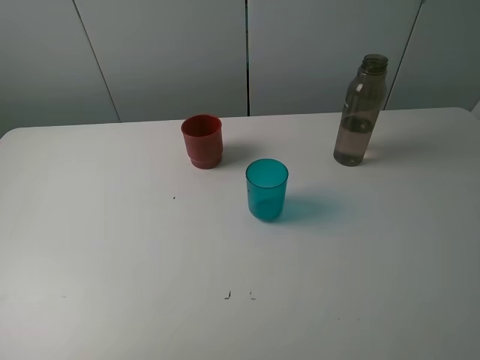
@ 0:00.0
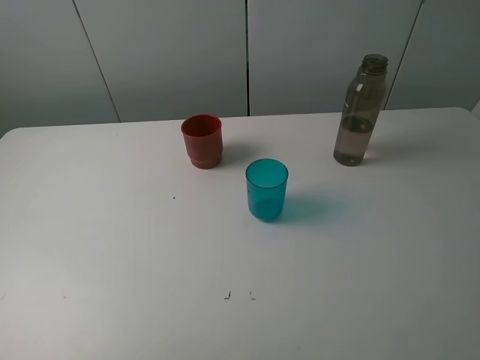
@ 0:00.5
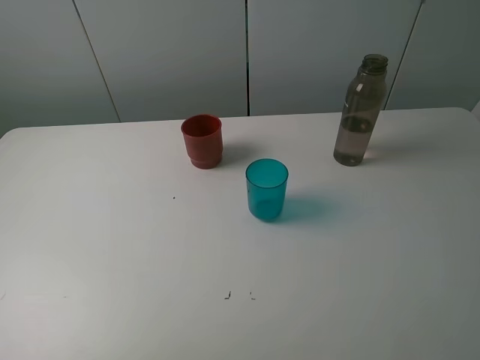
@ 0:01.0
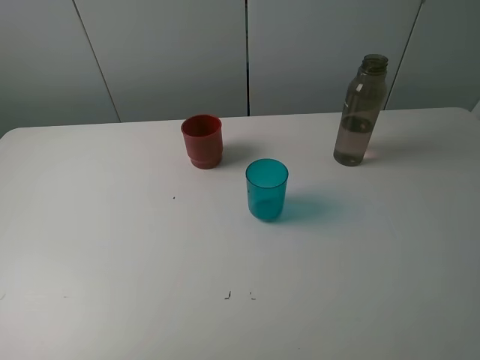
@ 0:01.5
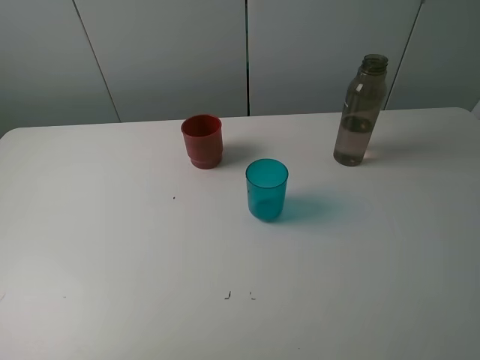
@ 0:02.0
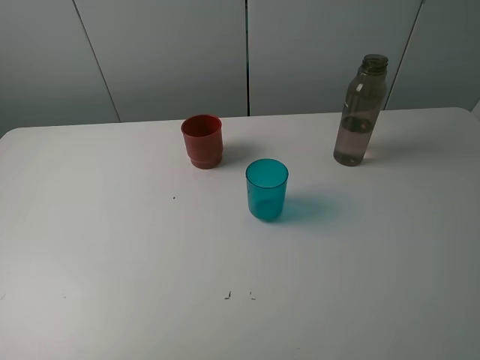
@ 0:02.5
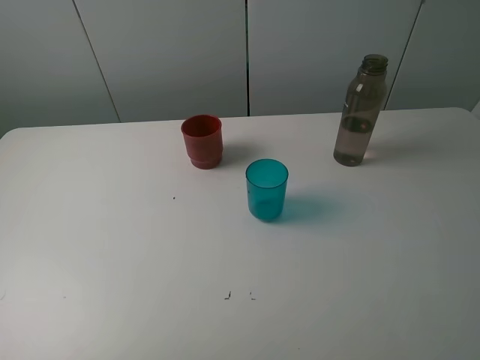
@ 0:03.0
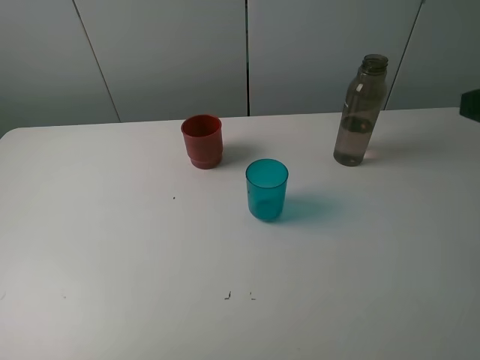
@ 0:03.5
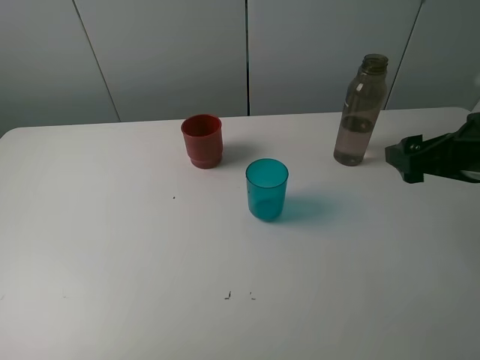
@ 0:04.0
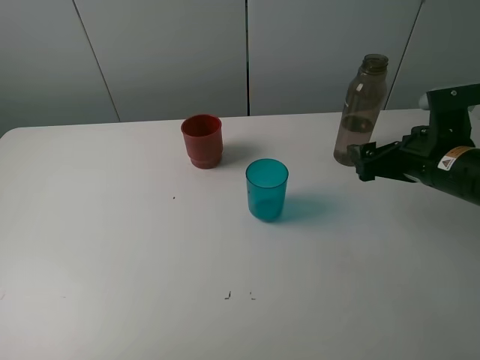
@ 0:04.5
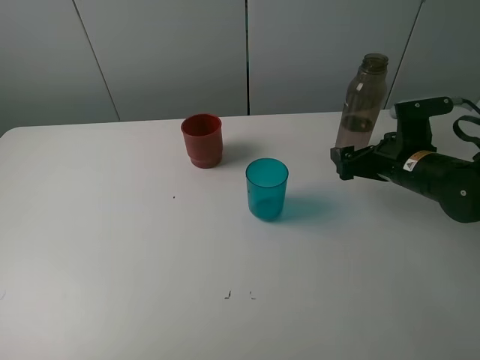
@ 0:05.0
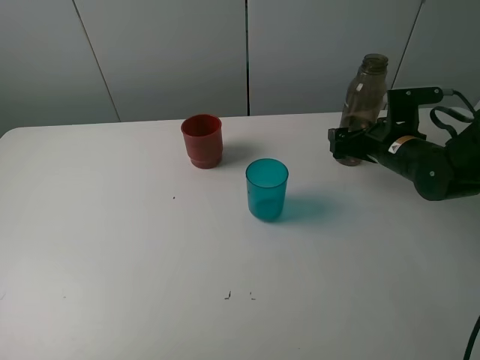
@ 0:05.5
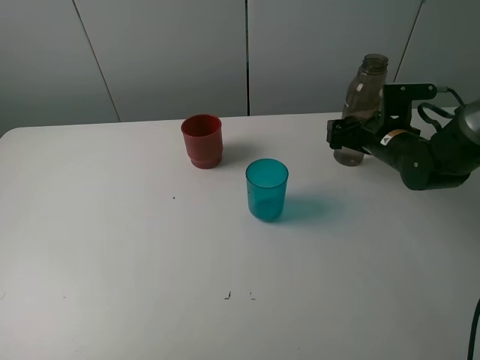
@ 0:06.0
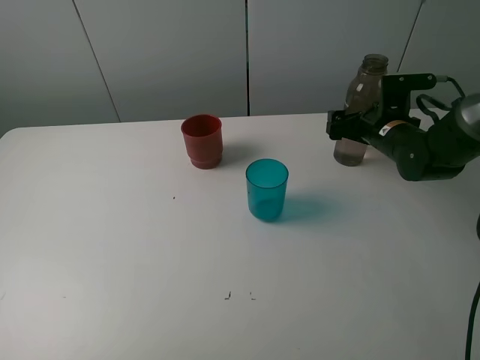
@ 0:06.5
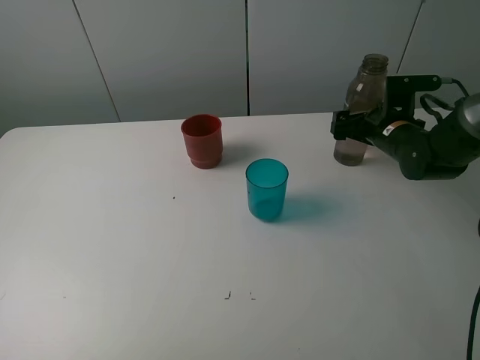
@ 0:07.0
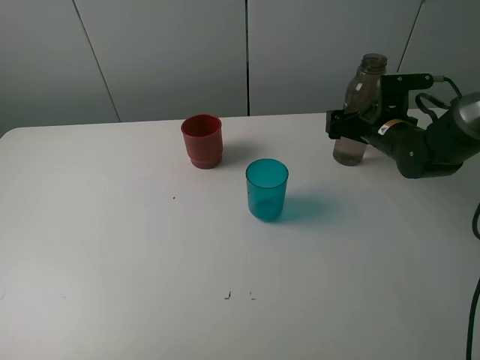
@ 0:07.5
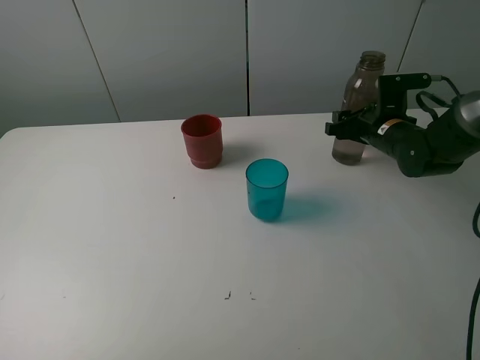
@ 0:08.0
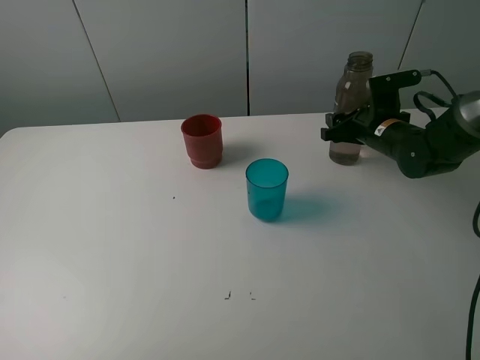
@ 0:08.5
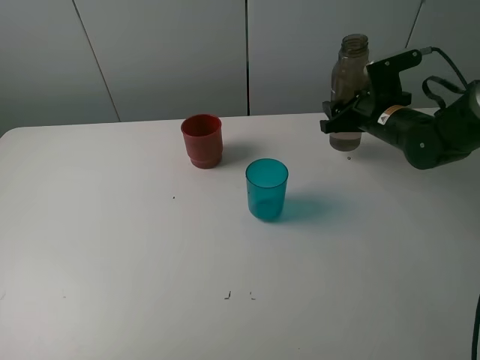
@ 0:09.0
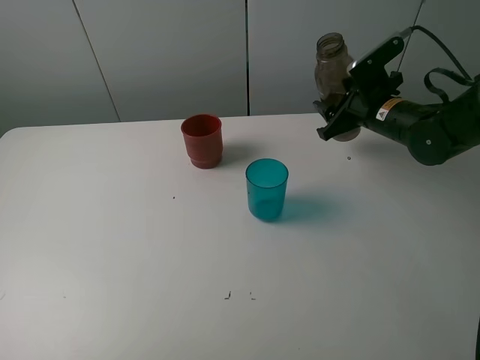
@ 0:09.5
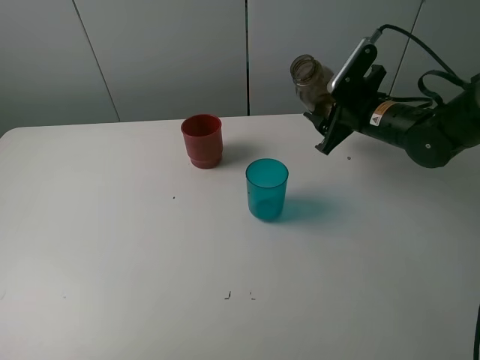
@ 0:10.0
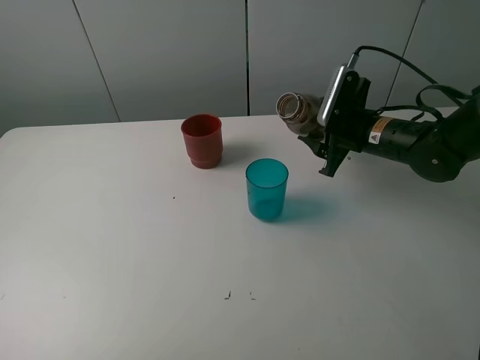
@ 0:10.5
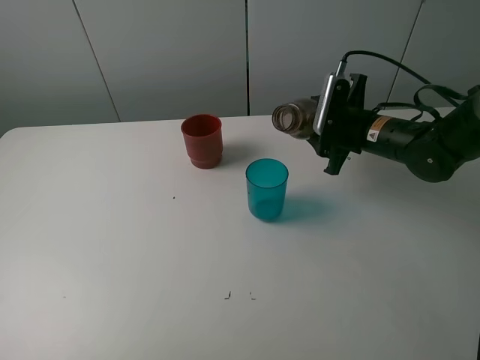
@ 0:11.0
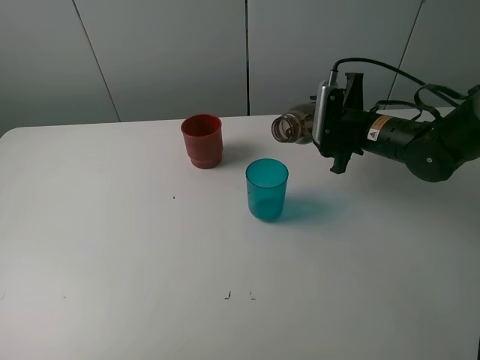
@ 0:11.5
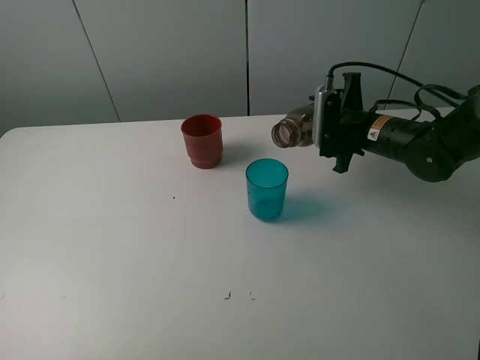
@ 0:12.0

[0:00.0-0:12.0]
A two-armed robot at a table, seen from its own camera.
Task of the whole recording: pick up the bottle and pour water into the cup, then pick up the cup containing water and pour it into another cup.
Step, 0:00.0 to 0:08.0: Grasp the brown bottle with the right gripper.
0:00.0 to 0:02.0: Both grippers stay about where they are.
0:02.0 to 0:04.0: The right gripper is displaced forward and downward by some 25 cm.
0:04.0 to 0:06.0: The right gripper moves forward and downward, about 20 cm.
0:06.0 to 0:08.0: The right gripper closes up.
0:08.0 to 0:10.0: The right gripper ends up roughly 5 cm from where it was.

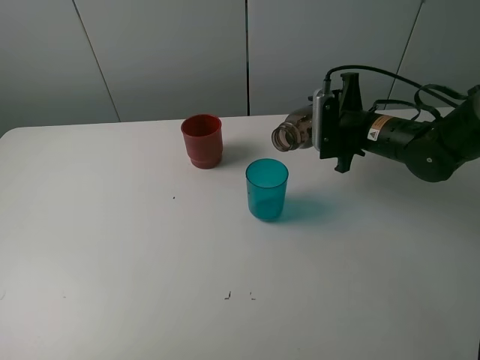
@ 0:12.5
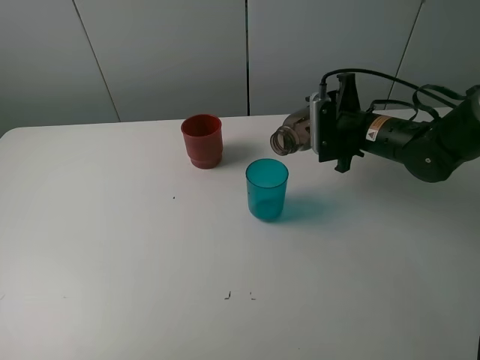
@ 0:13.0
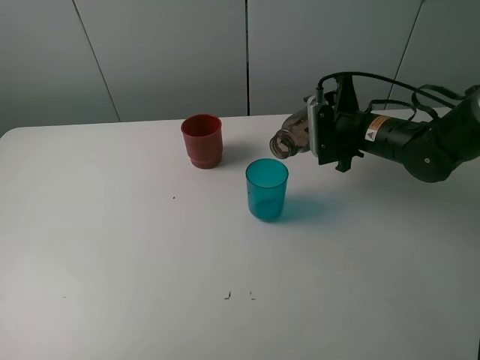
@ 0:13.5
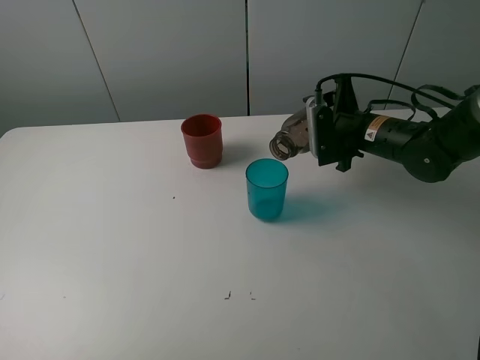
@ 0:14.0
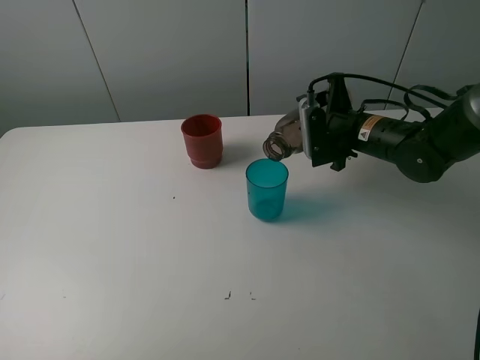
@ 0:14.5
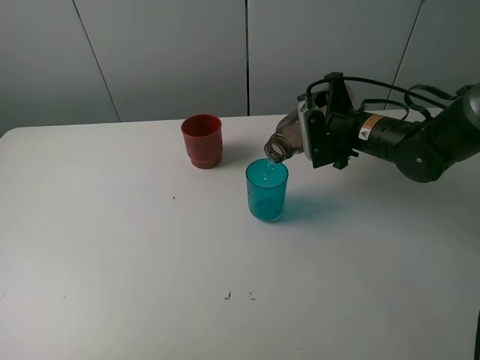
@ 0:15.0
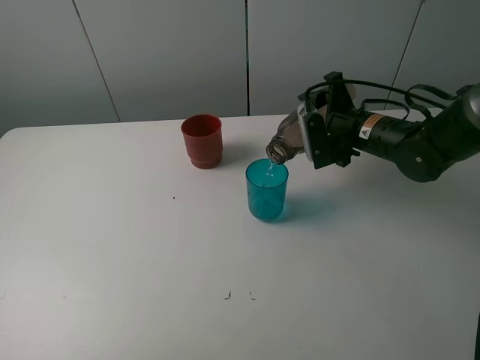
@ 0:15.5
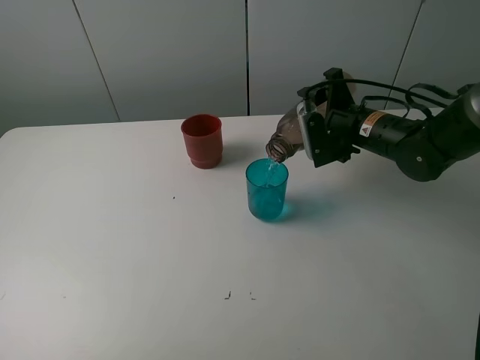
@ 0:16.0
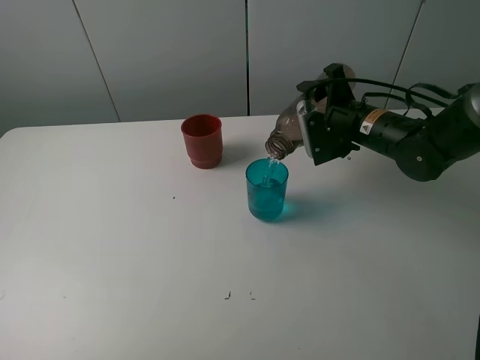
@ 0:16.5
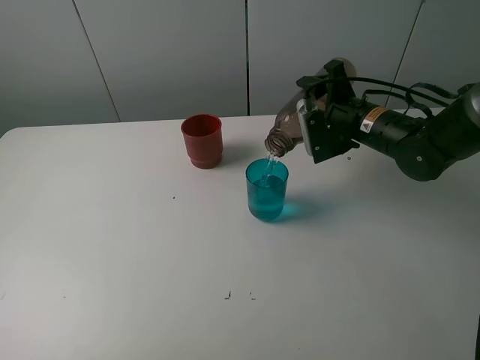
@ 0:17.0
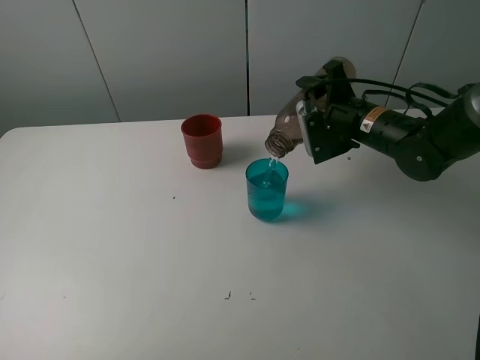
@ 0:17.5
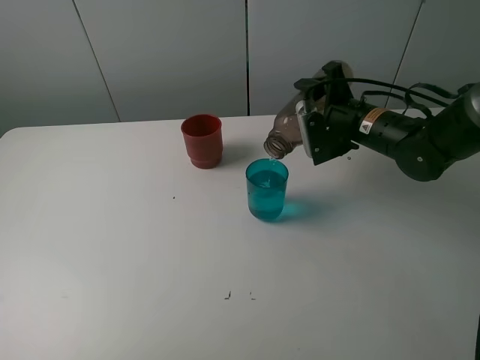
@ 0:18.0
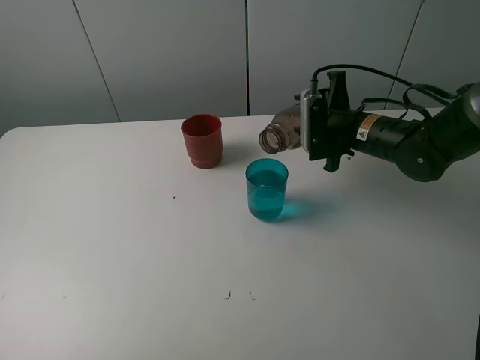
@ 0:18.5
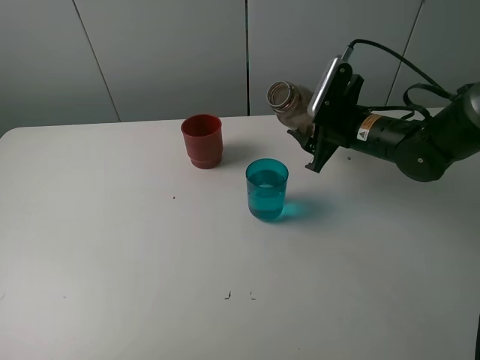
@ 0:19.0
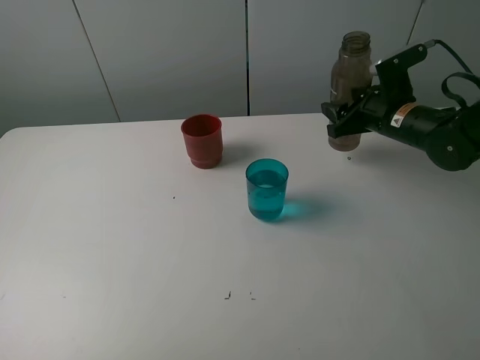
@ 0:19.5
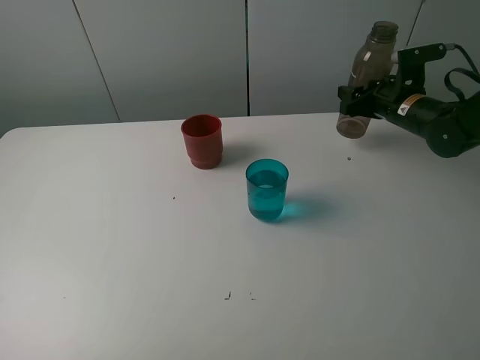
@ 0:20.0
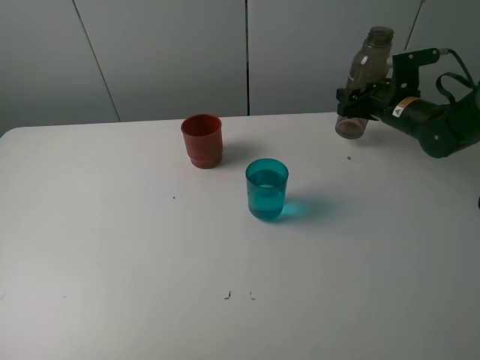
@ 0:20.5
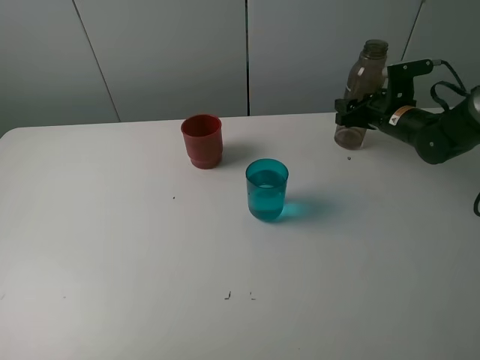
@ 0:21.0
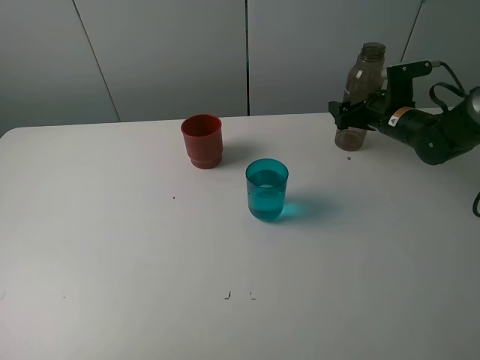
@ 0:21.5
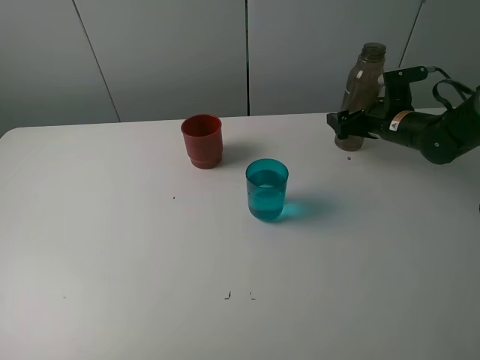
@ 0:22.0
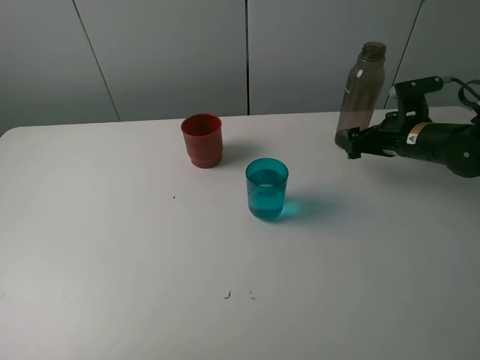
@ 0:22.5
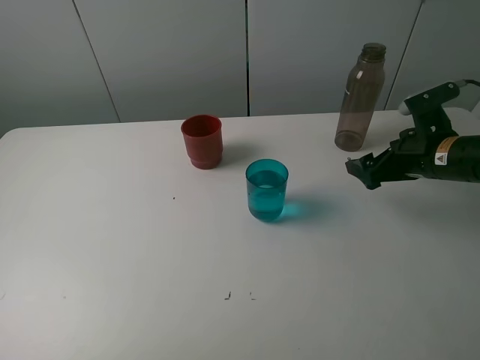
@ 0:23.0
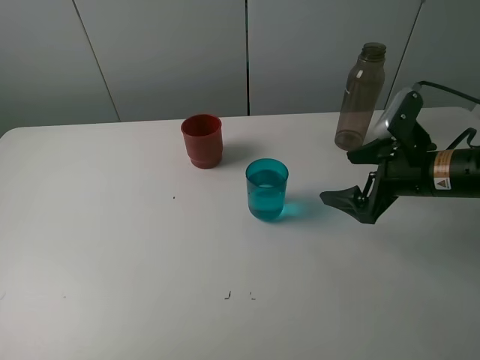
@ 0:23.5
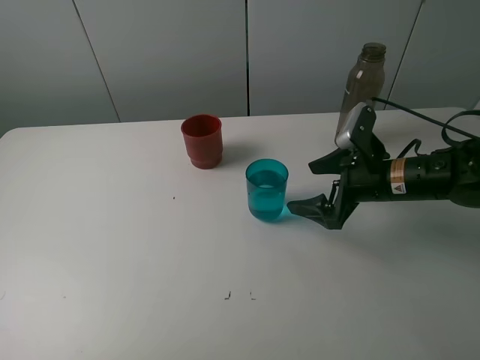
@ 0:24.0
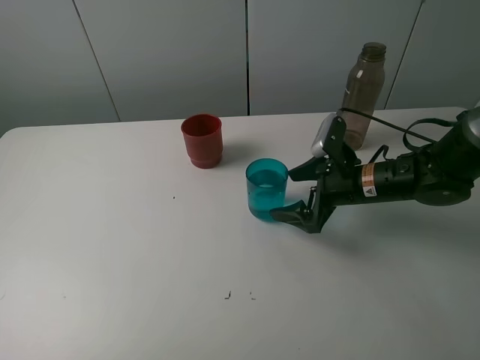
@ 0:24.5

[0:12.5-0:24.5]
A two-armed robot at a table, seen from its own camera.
Task of the whole recording: pick up the bottle and pour water into the cup, then pick up the cup containing water and pour it into another cup.
Step, 0:12.5 to 0:18.0: Pour water from brown bottle to blue cup with the right gripper.
Step, 0:18.5 to 0:22.0: Place the brown bottle with the right gripper.
0:12.5 to 0:16.5: The grippers make only small movements.
0:18.5 to 0:20.5: The right gripper shifts approximately 10 cm to the right and forward.
0:20.5 to 0:22.5: The right gripper is displaced backward by some 5 cm, and opens up.
0:22.5 to 0:24.5: The right gripper shifts some 10 cm to the left and backward.

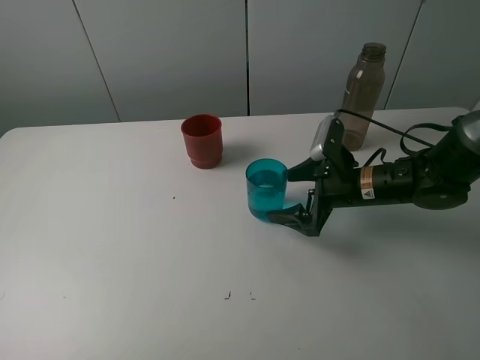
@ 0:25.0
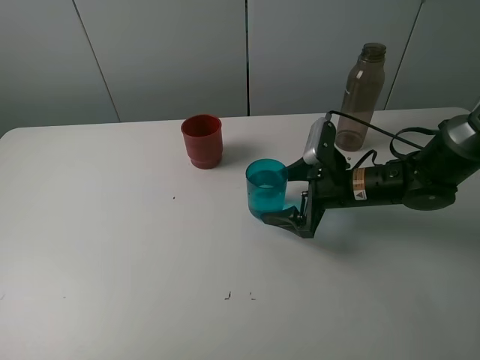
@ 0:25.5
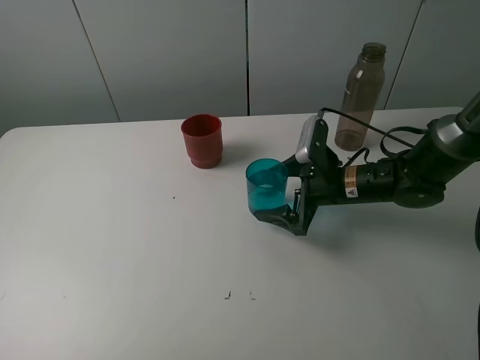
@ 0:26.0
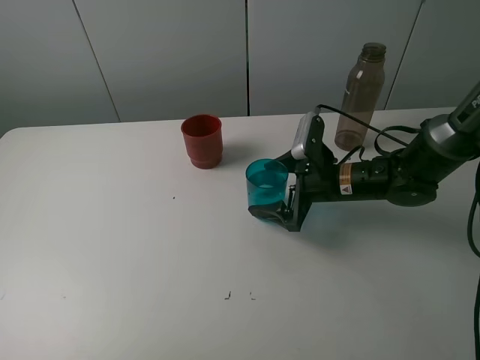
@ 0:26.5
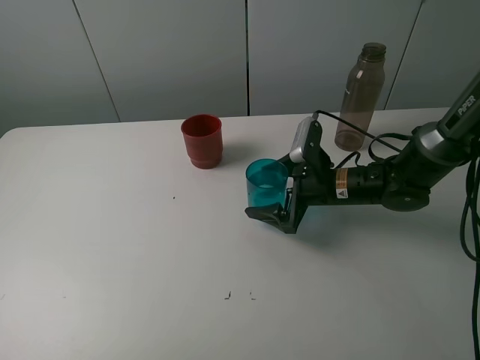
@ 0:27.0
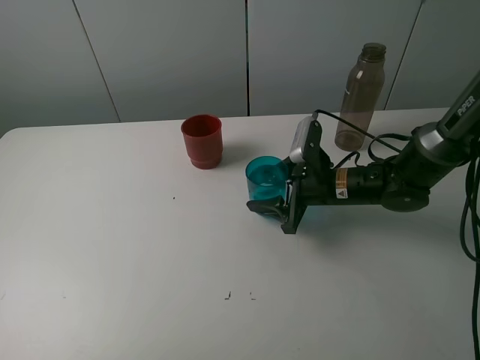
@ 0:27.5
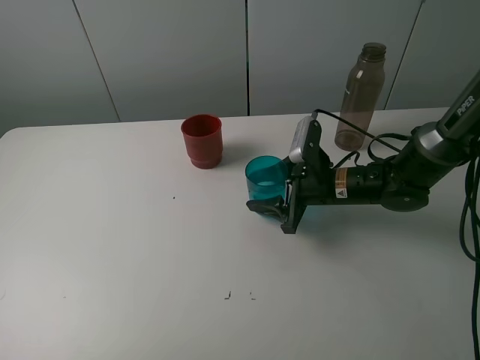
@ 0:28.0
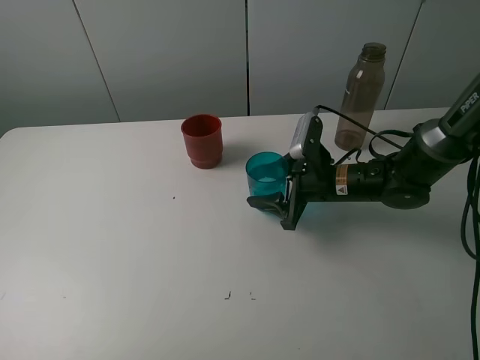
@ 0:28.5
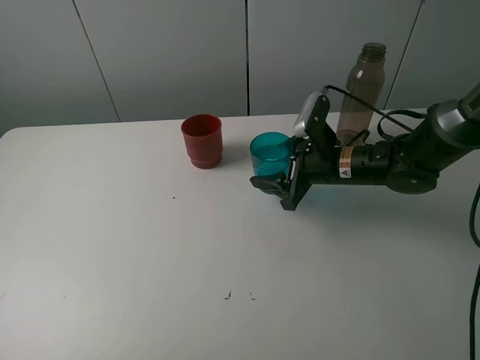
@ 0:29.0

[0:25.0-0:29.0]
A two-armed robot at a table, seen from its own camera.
Task of the whole recording: pick up the bottle and pour water into the cup, then pick up the cup containing water and pour it into another cup.
Step, 0:25.0 to 0:27.5: Grasp the blue cup with the right gripper.
0:25.0 to 0:27.0: There are only small adjustments of the grippers.
0:27.0 to 0:29.0: The right gripper closes.
